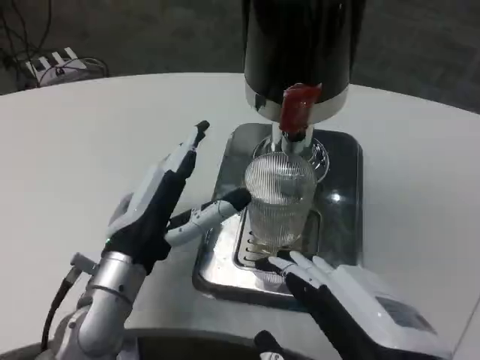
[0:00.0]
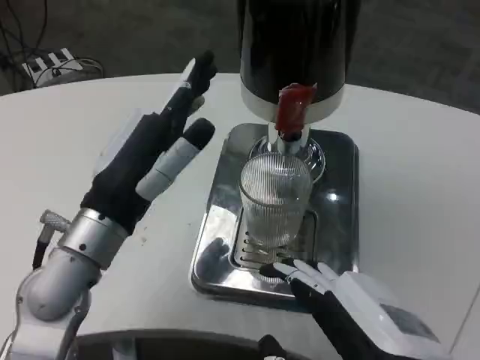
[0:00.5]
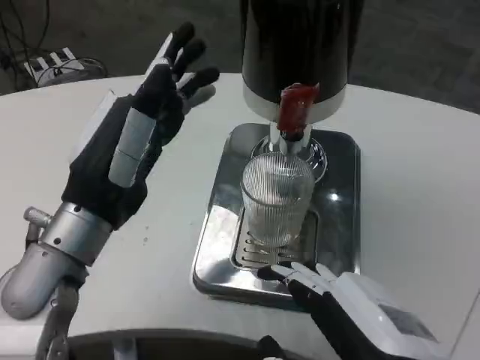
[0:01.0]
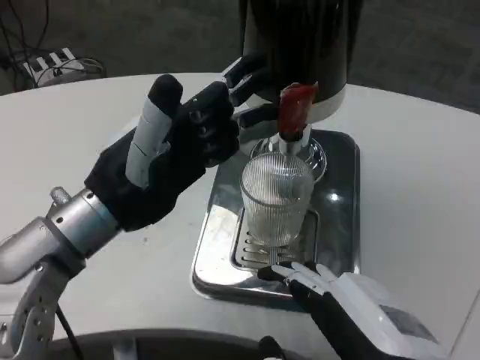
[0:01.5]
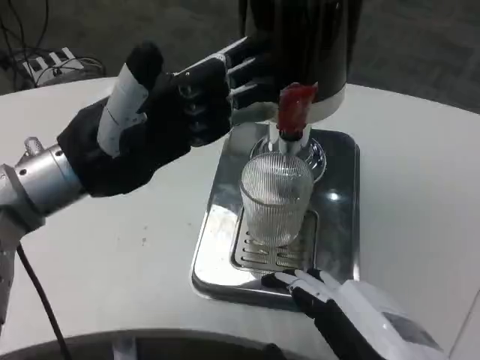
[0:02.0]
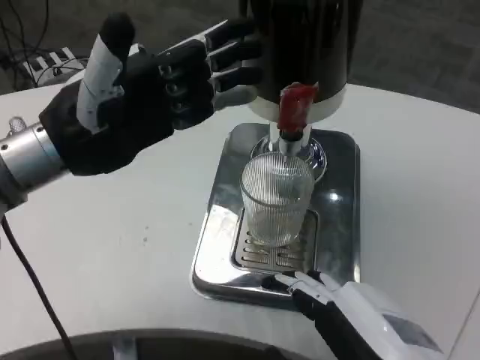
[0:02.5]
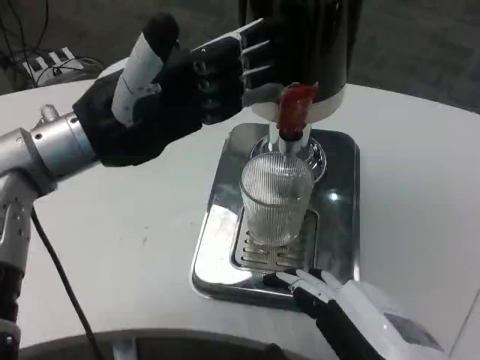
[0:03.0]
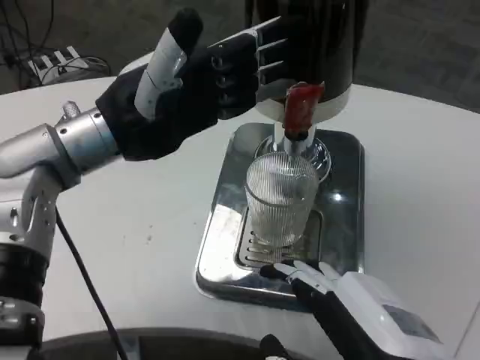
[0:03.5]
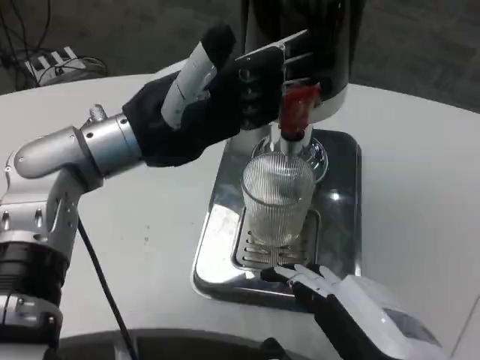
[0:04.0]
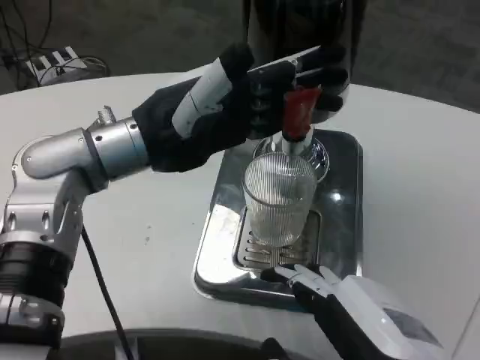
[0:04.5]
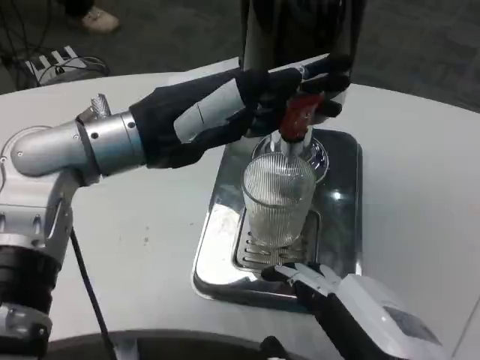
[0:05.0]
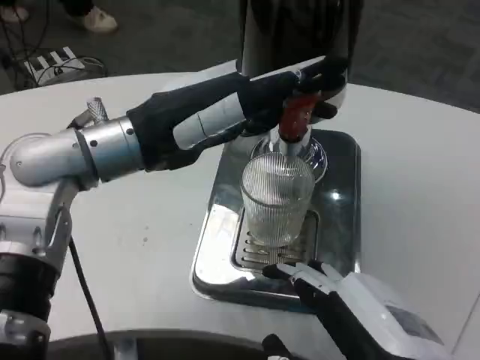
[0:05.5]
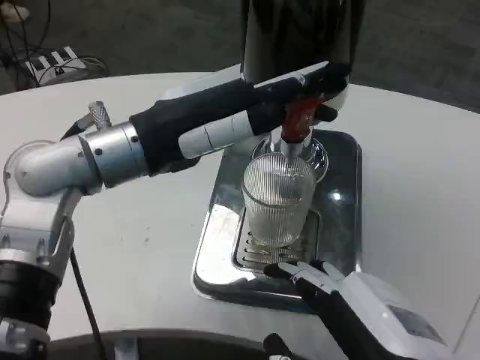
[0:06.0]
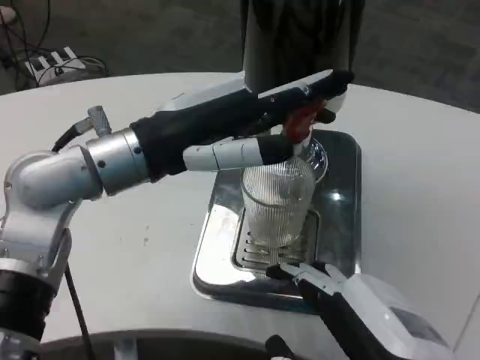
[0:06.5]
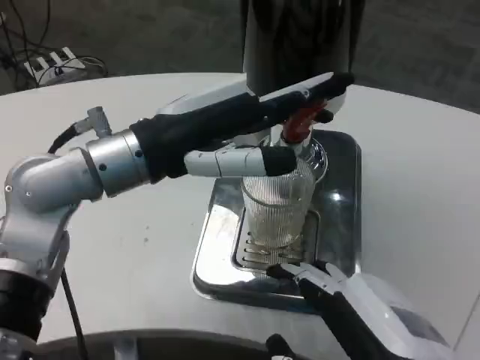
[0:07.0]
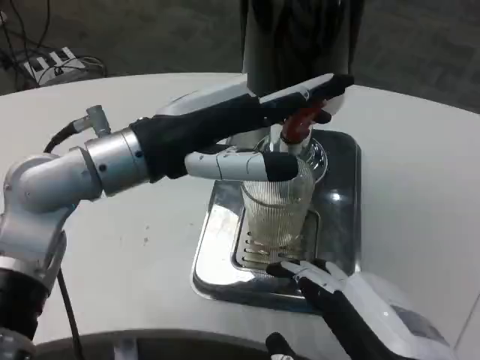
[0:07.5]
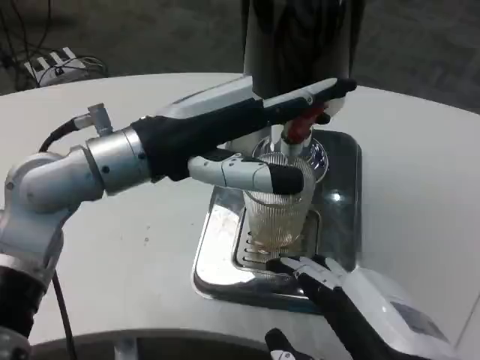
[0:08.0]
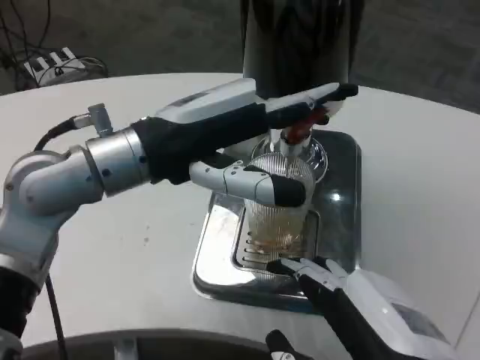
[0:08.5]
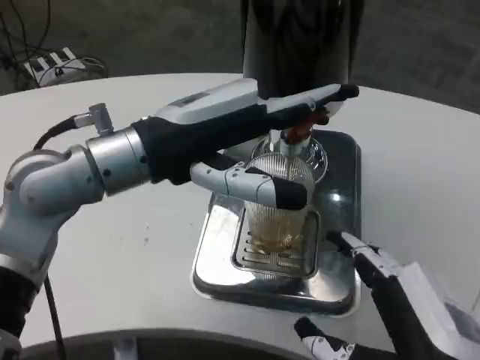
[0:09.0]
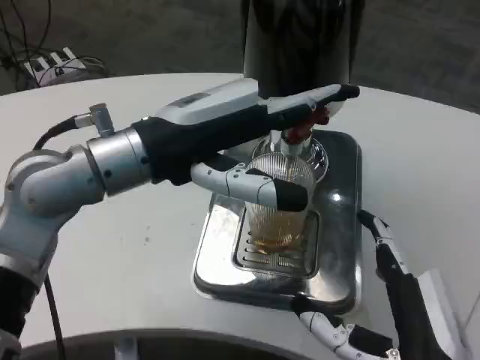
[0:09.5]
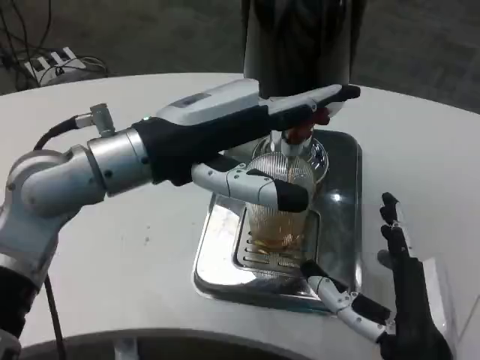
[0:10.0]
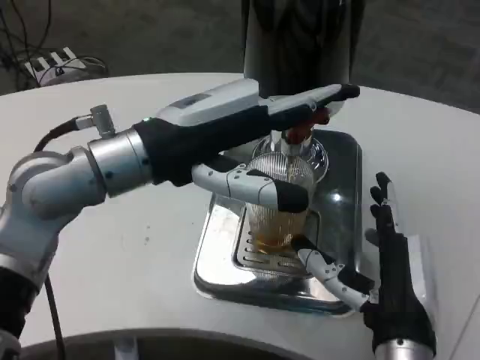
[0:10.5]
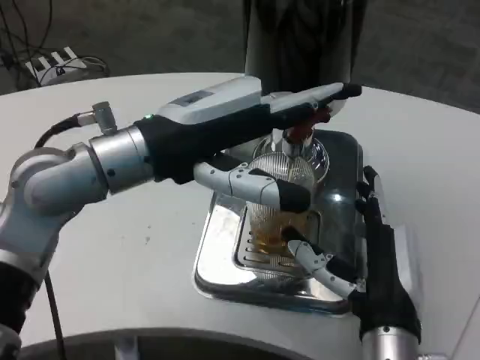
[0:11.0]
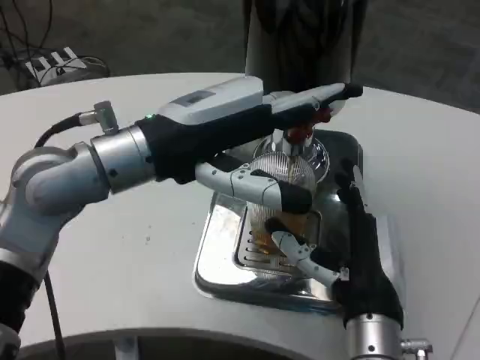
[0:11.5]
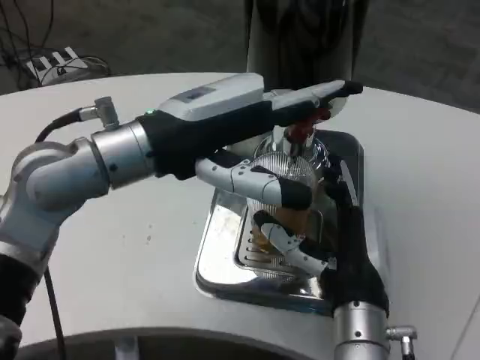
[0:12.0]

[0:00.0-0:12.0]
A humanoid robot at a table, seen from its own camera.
Task of the whole recording: Grasp the cup under the faucet to collect the drink, then remove the cup.
0:00.0 to 0:02.0: The left hand goes about 15 cm upward and to the left.
0:02.0 to 0:04.0: The left hand ends up roughly 5 cm from where it was.
0:08.0 to 0:10.0: The right hand travels downward and forward by roughly 10 cm.
0:10.0 to 0:12.0: The right hand goes approximately 5 cm forward.

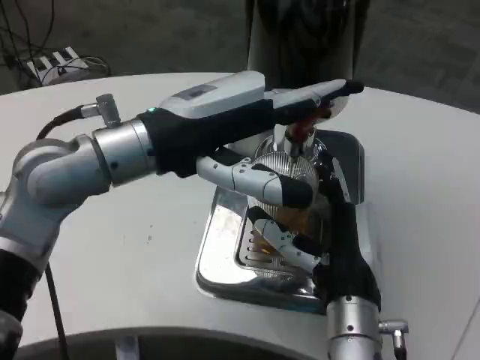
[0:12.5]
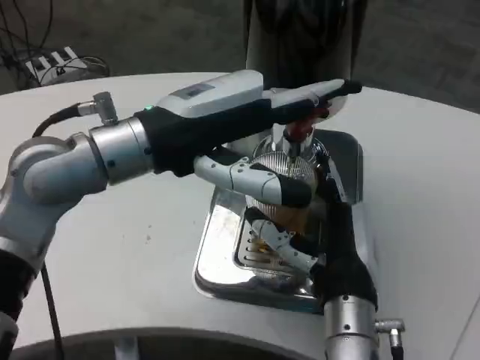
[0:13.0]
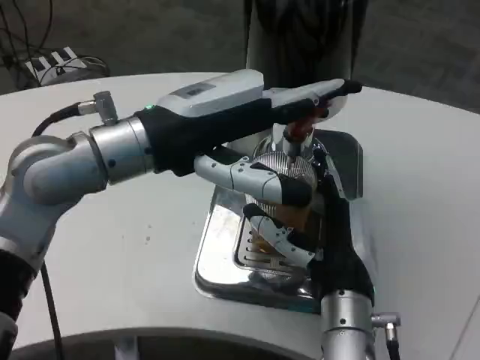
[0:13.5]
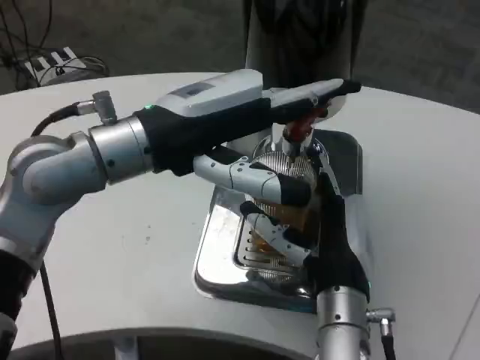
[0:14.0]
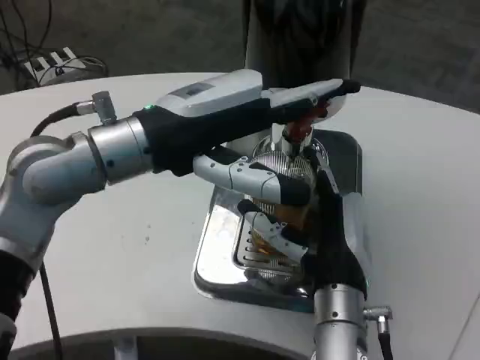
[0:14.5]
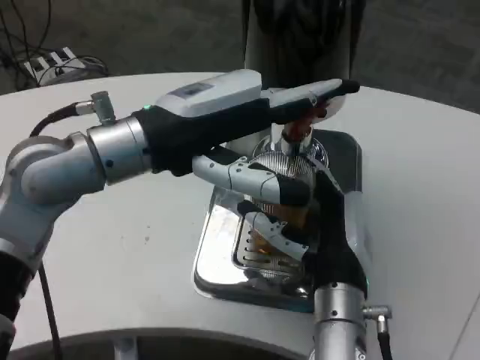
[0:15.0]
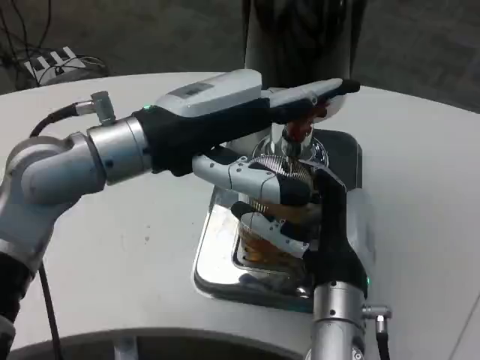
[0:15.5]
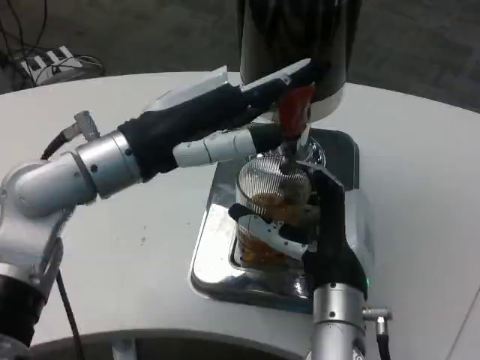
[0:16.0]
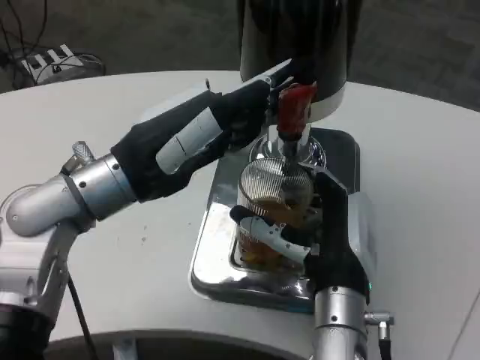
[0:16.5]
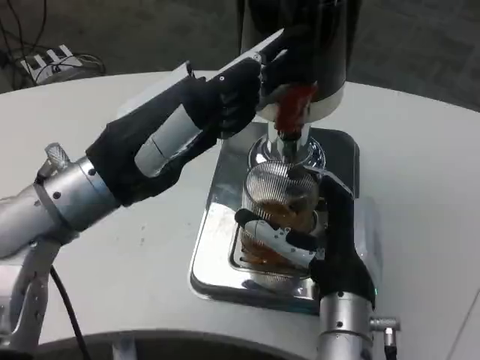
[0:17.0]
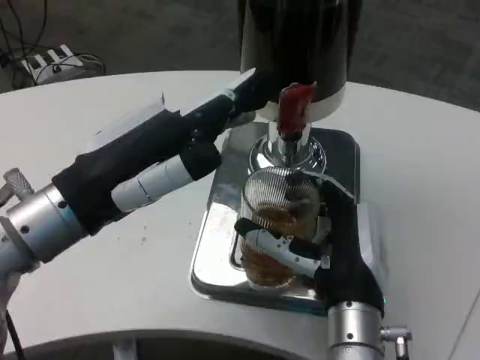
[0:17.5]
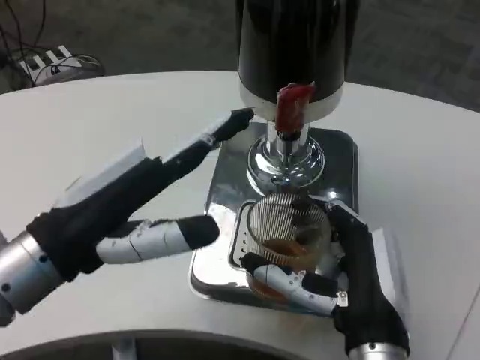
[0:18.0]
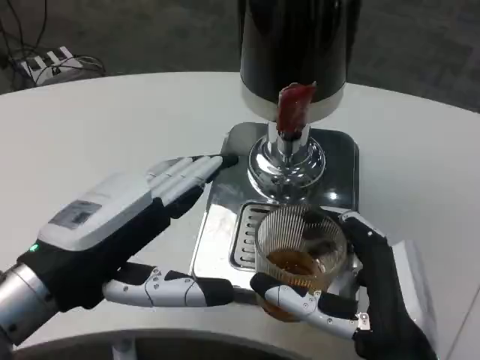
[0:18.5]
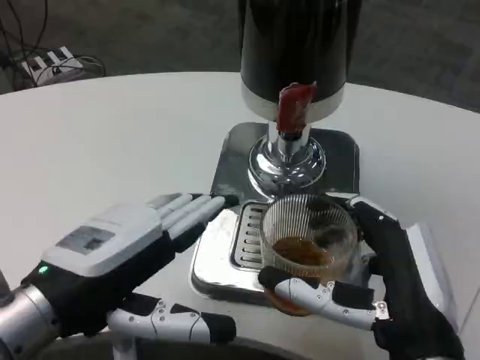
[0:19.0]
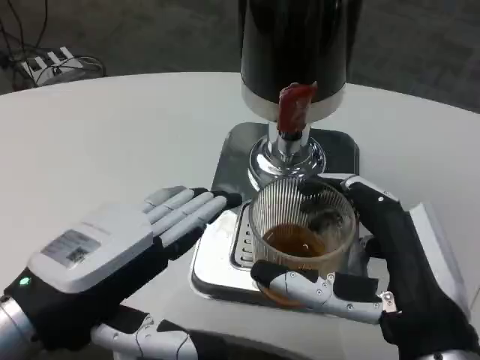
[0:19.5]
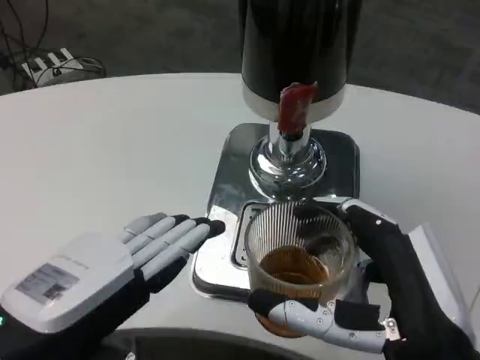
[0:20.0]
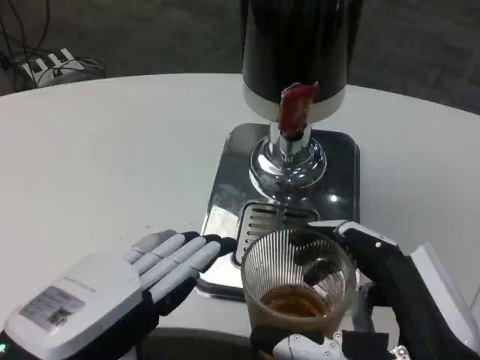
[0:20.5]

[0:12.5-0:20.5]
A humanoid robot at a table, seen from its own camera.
Task of the whole recording: Grasp the cup under the faucet to collect the drink, then remove the cup.
0:12.5 to 0:14.5: The hands make only small movements.
0:16.5 to 0:18.5: The hands both shift backward by approximately 10 cm.
0:18.5 to 0:20.5: Both hands travel together backward, about 5 cm.

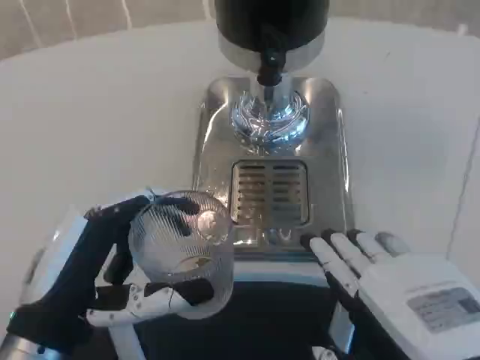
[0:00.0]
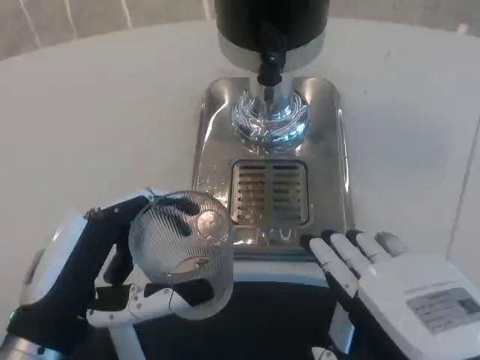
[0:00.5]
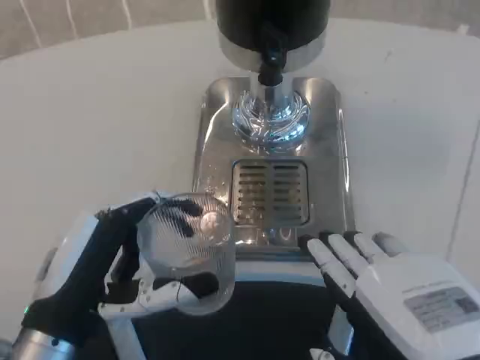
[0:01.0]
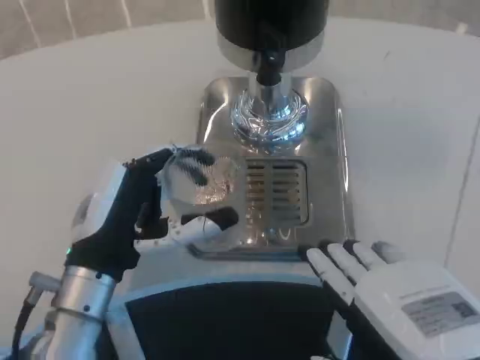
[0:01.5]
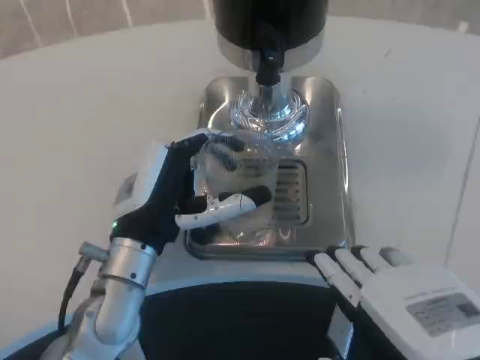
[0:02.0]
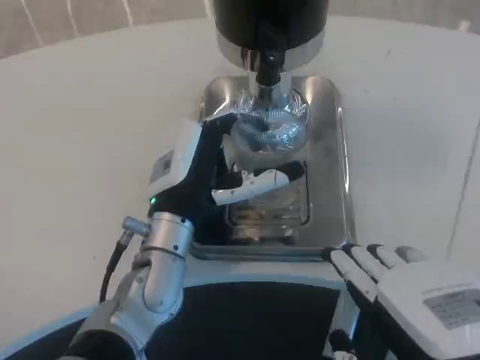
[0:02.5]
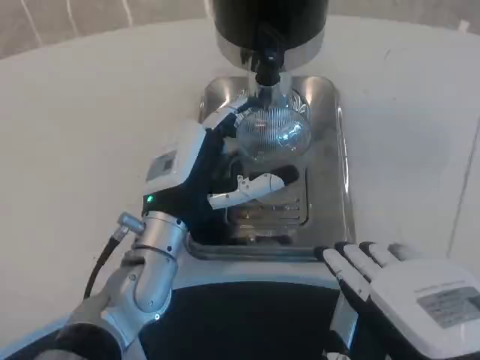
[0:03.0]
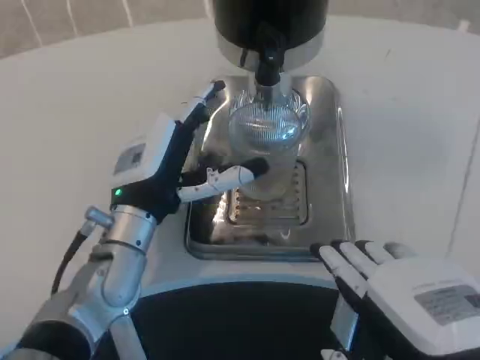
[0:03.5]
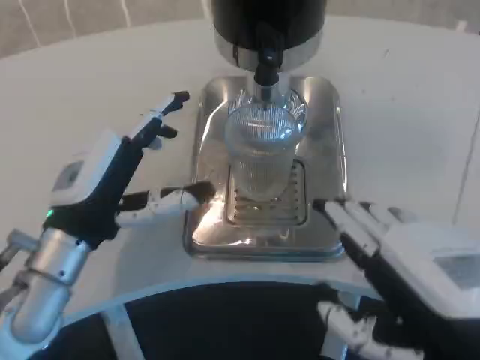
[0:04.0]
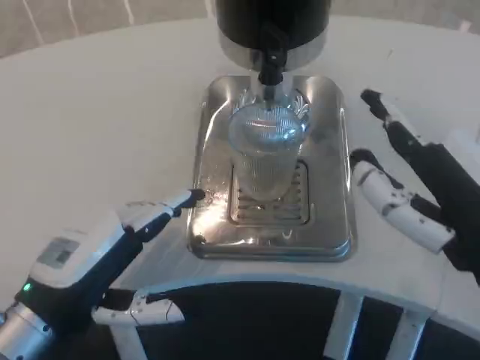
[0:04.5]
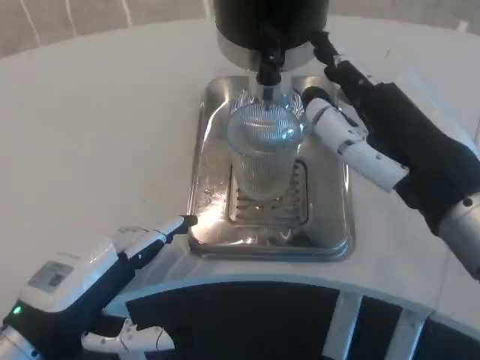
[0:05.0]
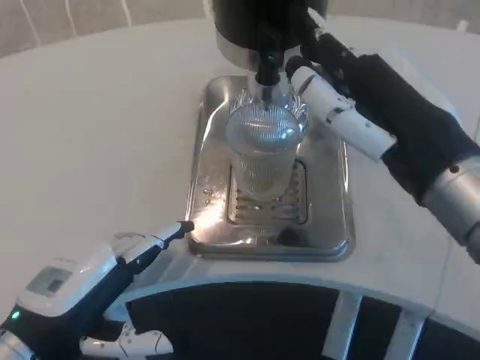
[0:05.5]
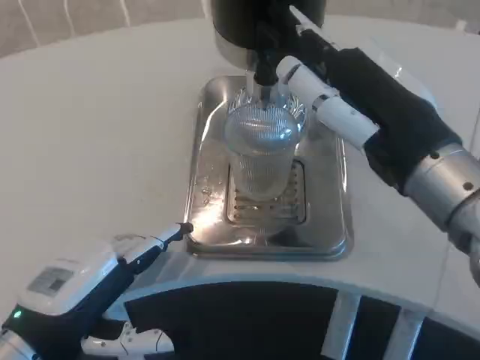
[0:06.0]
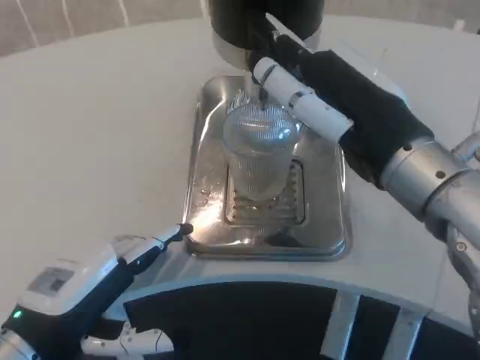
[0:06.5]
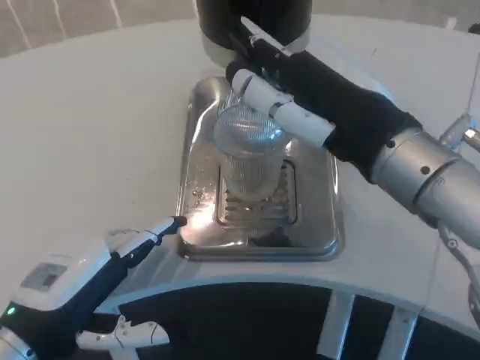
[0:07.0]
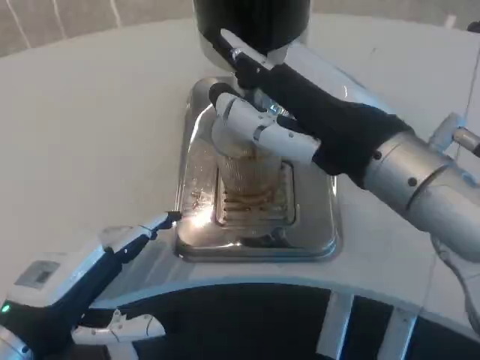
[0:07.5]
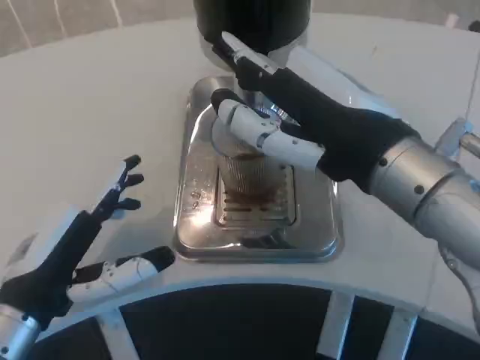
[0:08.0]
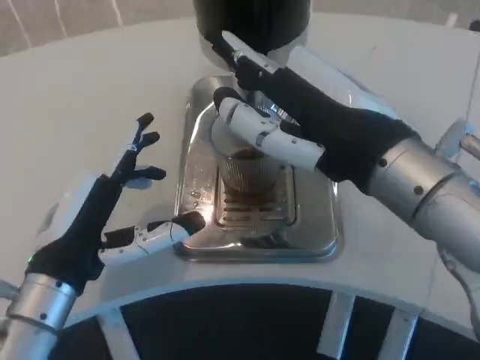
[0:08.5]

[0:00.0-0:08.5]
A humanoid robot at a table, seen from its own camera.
Task of the whole recording: Grasp the cup under the faucet to collect the drink, then remove the cup.
0:00.0 to 0:02.0: The left hand travels forward and to the right by roughly 15 cm.
0:02.0 to 0:04.0: The left hand heads to the left, covering some 5 cm.
0:04.0 to 0:06.5: The right hand shifts roughly 15 cm forward and upward; the left hand is displaced backward by approximately 10 cm.
0:06.5 to 0:08.5: The left hand shifts by approximately 5 cm.
